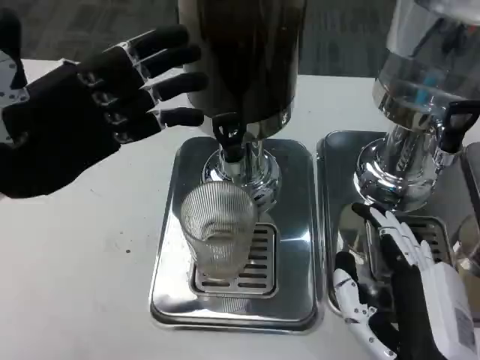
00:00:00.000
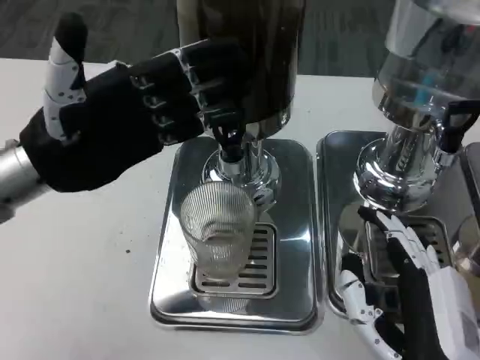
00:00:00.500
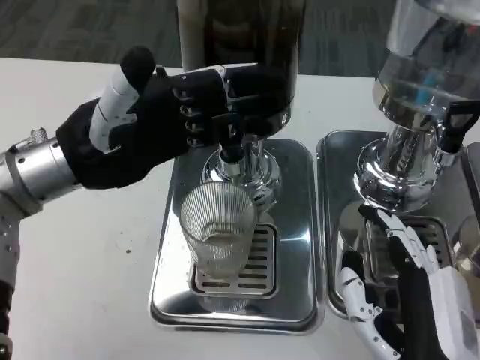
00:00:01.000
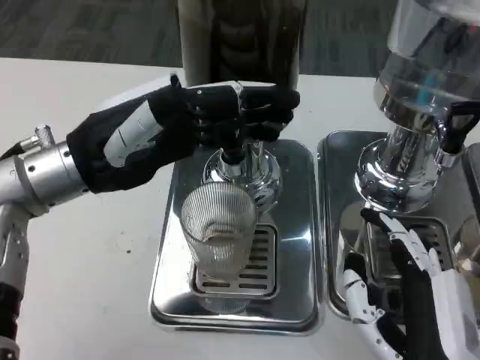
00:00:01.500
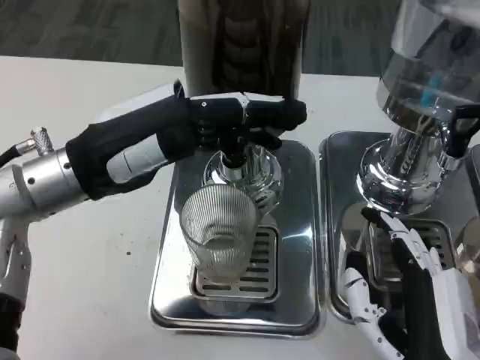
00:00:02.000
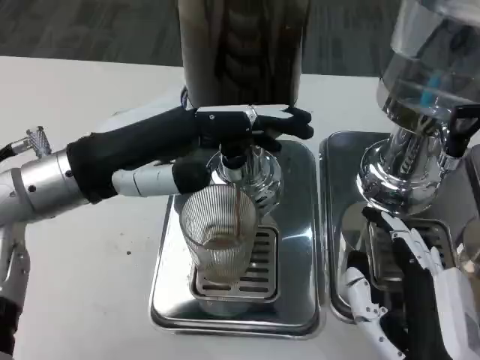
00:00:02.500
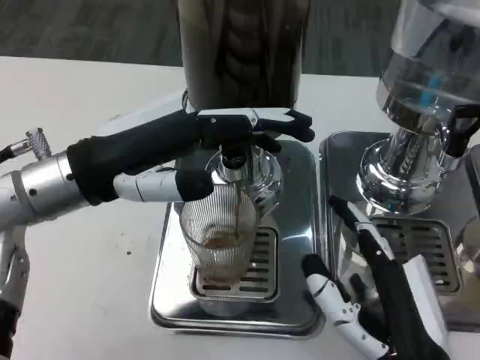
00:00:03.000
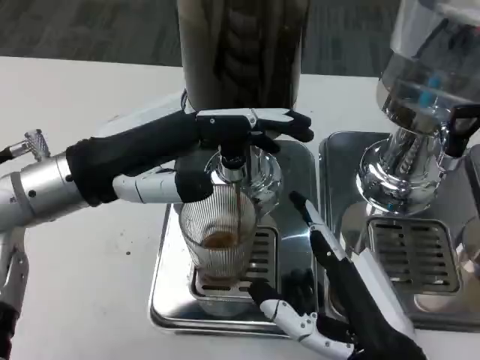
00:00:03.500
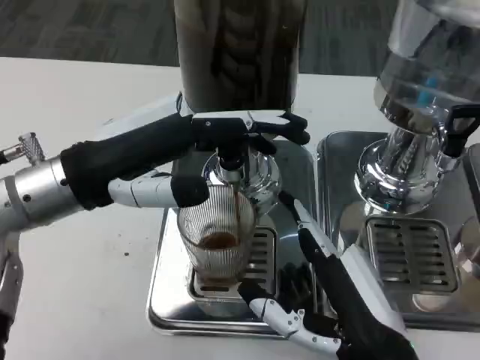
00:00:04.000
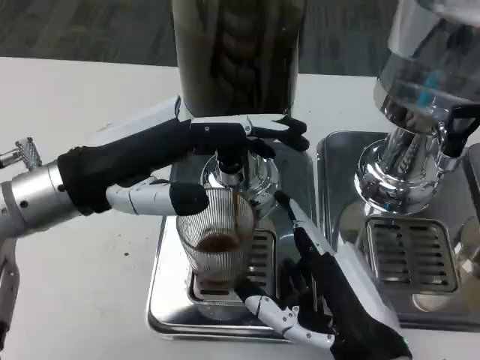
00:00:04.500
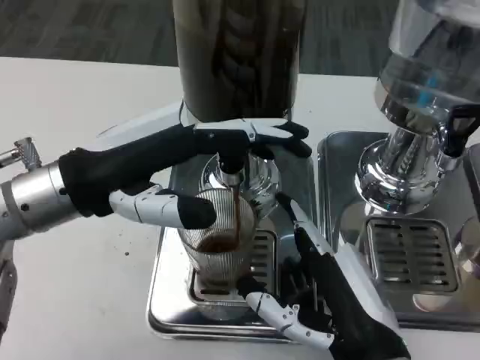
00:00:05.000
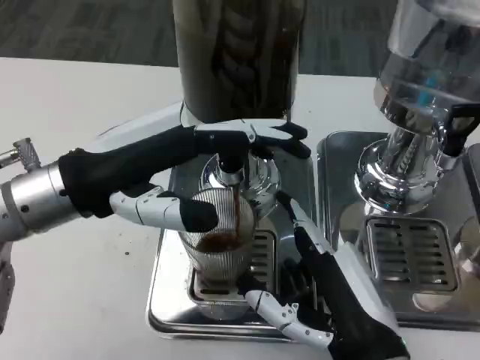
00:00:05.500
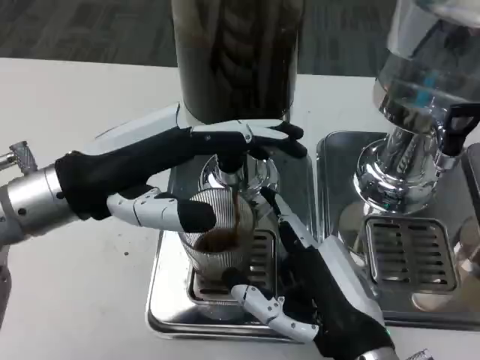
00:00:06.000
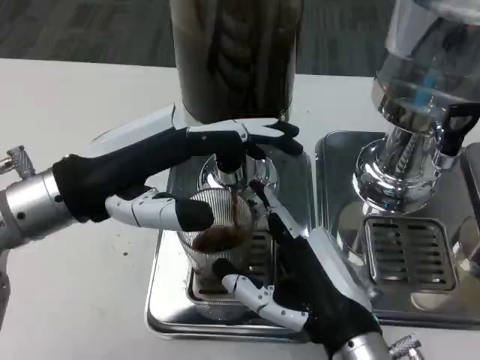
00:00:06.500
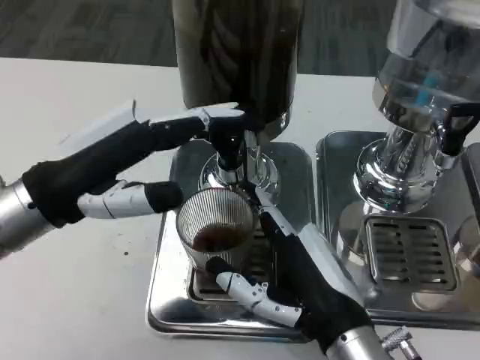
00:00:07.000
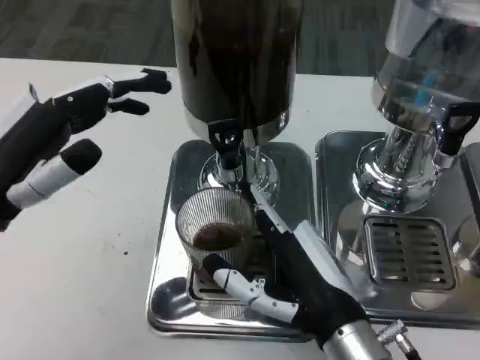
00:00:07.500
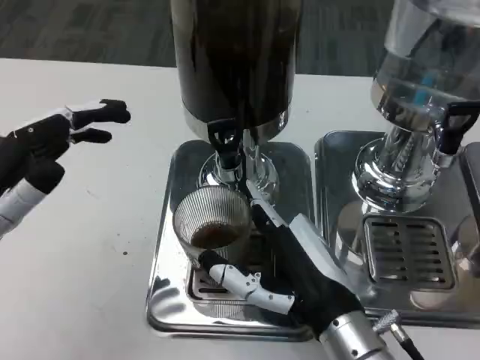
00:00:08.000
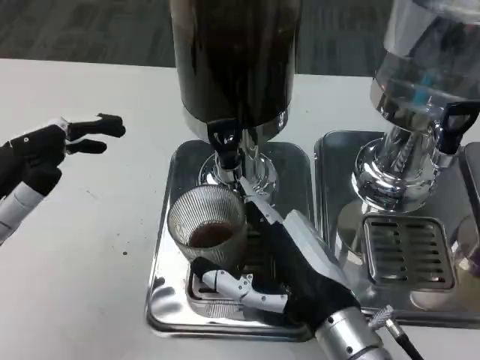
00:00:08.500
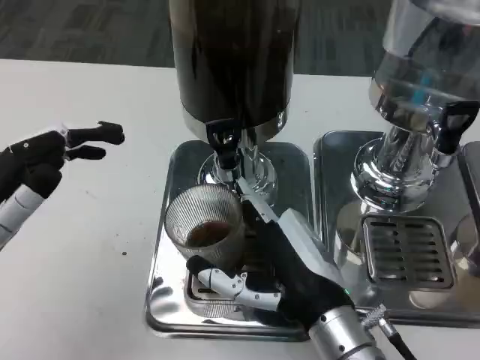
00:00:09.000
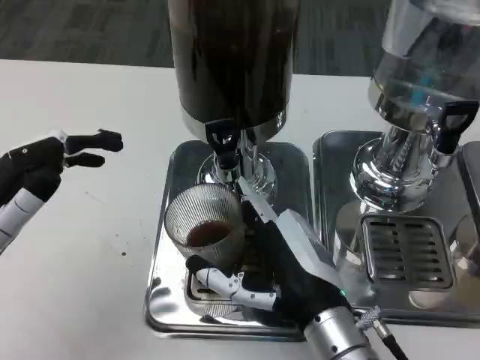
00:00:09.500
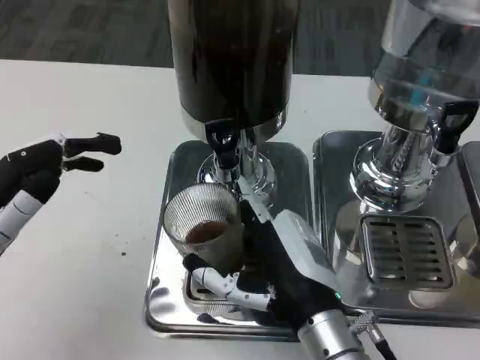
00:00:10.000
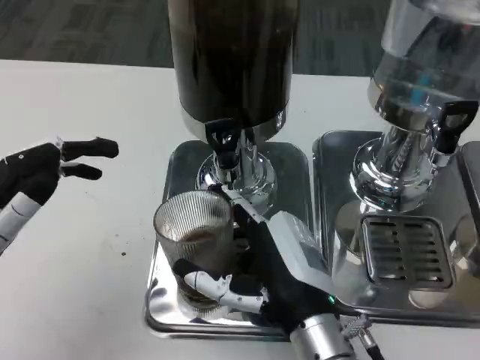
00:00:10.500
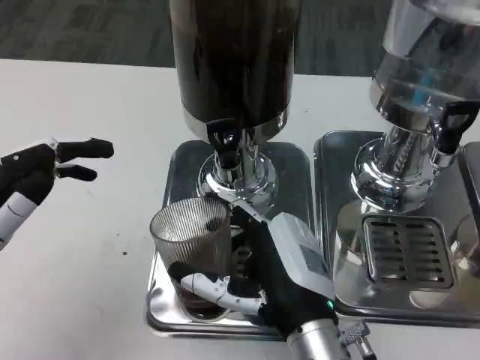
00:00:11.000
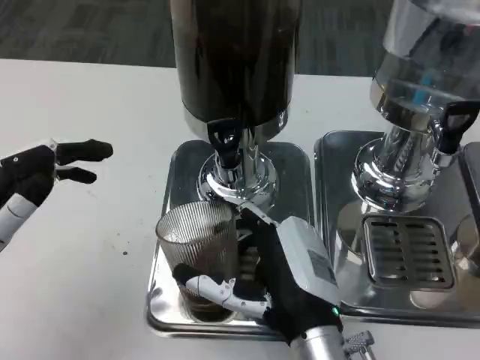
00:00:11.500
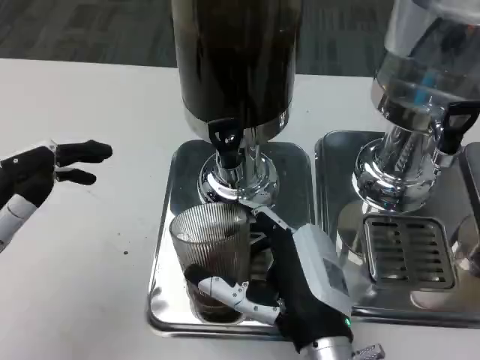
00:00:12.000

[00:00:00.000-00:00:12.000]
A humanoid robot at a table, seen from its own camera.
Task of the whole recording: Grasp the cup under the faucet to collect the drink, then remove the cup.
00:00:00.000 to 00:00:02.000: The left hand is displaced to the right by about 5 cm.
00:00:06.000 to 00:00:08.000: The left hand goes approximately 10 cm to the left, backward and downward.
00:00:10.000 to 00:00:12.000: The hands move only a little.

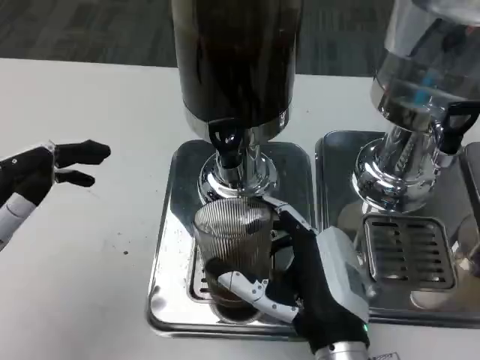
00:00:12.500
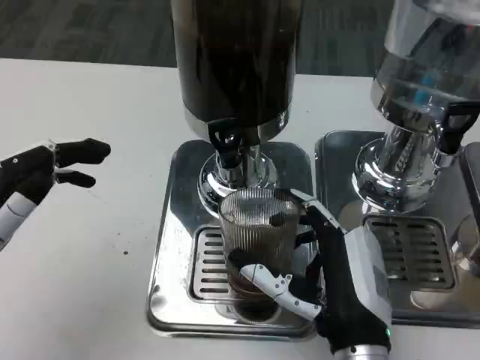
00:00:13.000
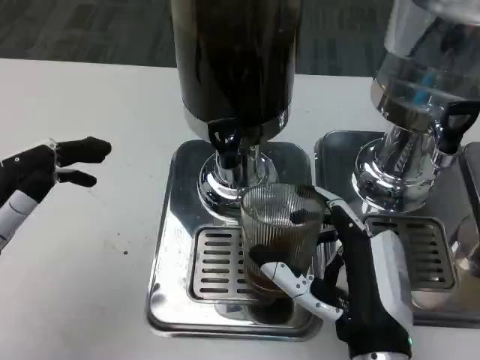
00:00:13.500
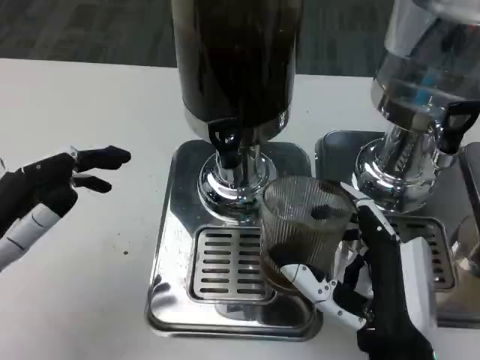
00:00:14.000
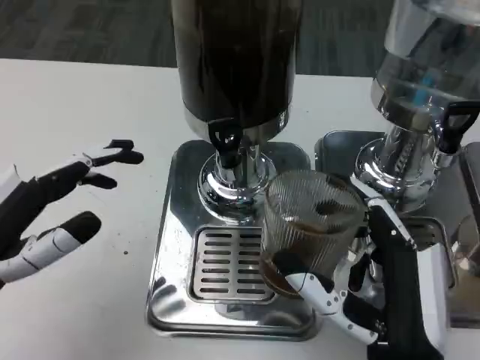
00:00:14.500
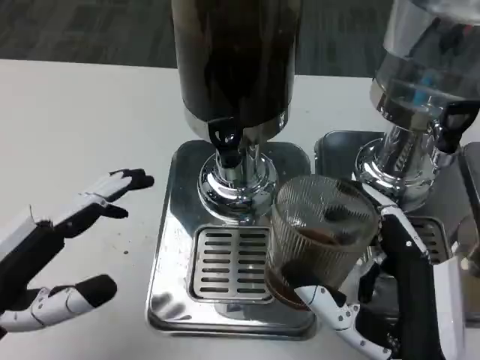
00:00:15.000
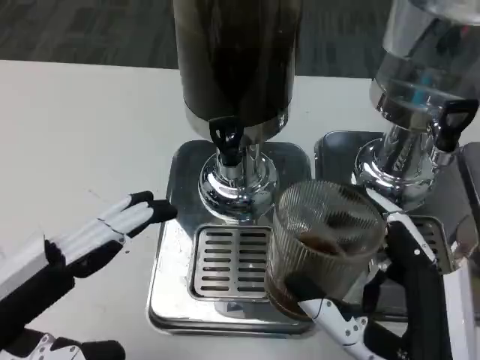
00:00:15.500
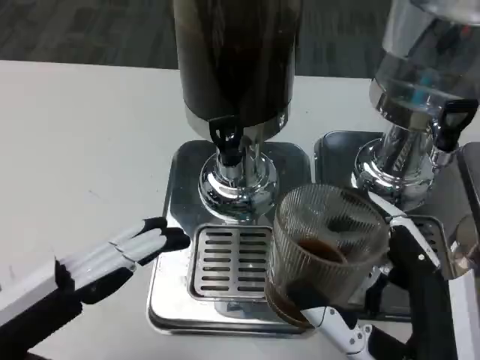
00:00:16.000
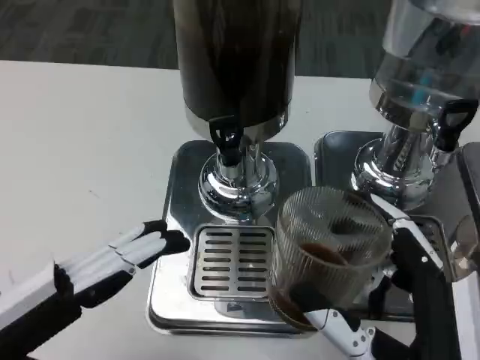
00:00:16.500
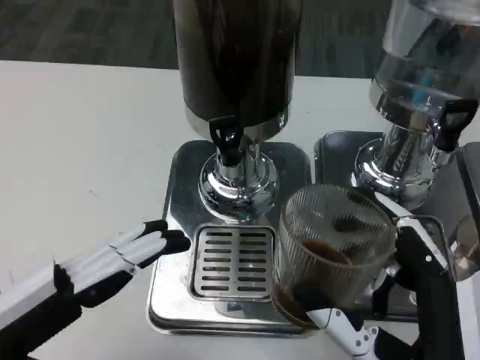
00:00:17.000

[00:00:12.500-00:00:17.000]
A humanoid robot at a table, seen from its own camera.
Task of the whole recording: Grasp the cup under the faucet to collect the drink, then remove the cup.
00:00:12.500 to 00:00:14.500: The right hand shifts by roughly 5 cm.
00:00:14.500 to 00:00:17.000: The left hand is displaced backward by some 5 cm.

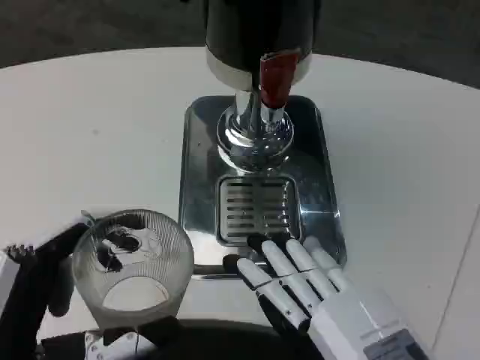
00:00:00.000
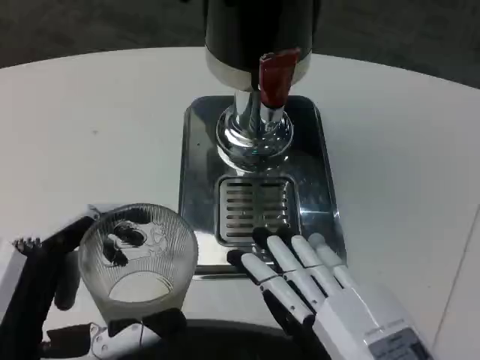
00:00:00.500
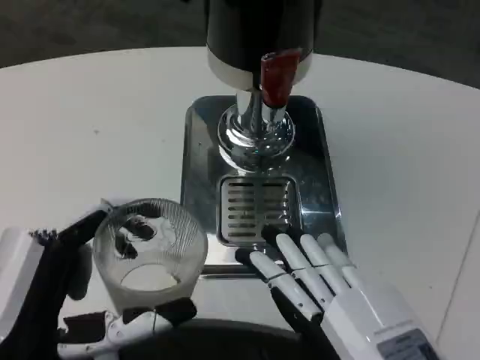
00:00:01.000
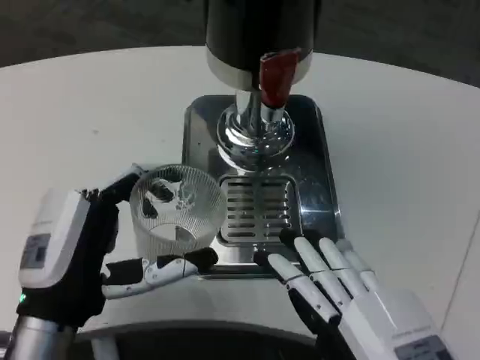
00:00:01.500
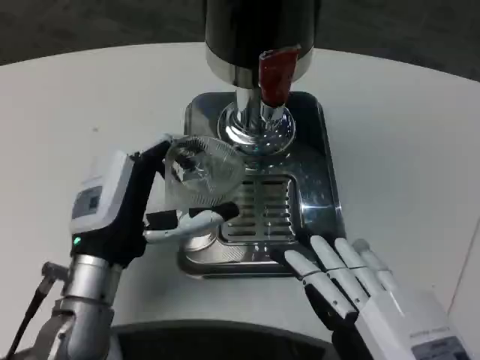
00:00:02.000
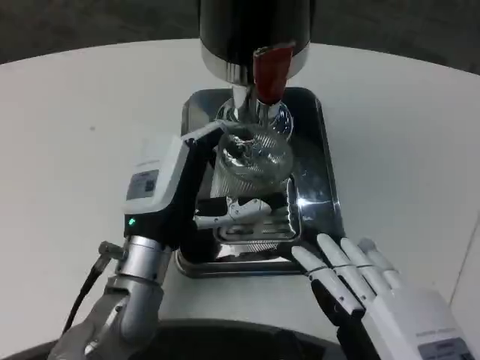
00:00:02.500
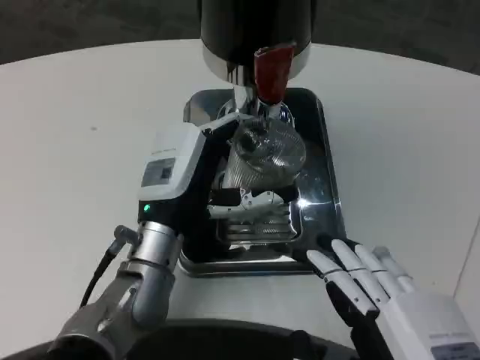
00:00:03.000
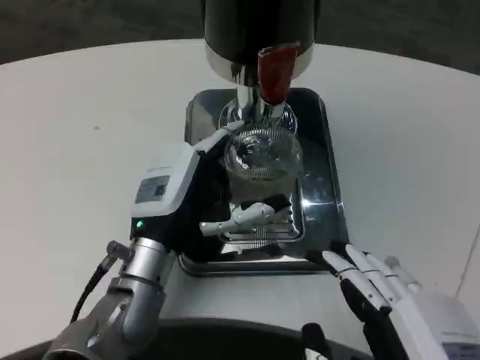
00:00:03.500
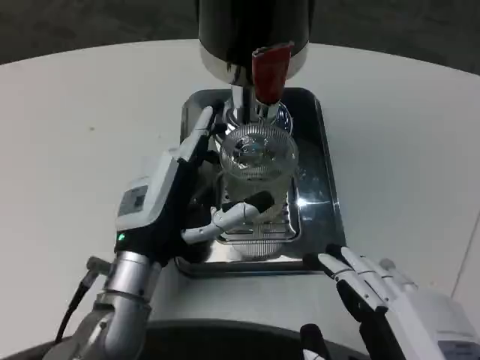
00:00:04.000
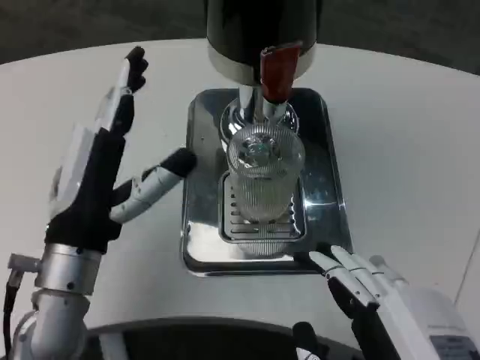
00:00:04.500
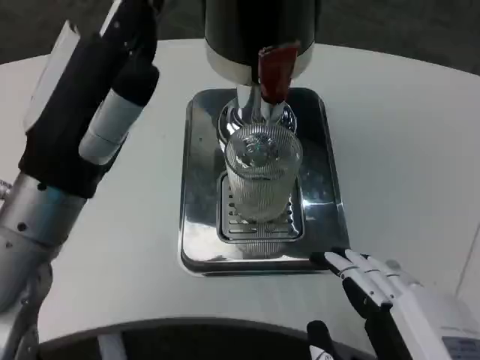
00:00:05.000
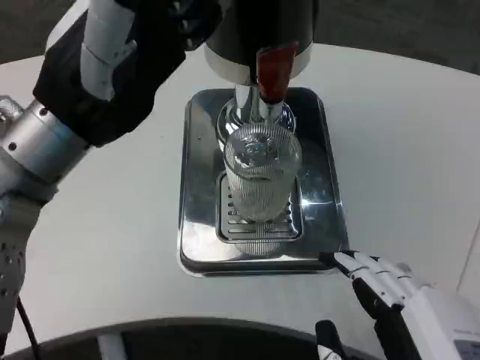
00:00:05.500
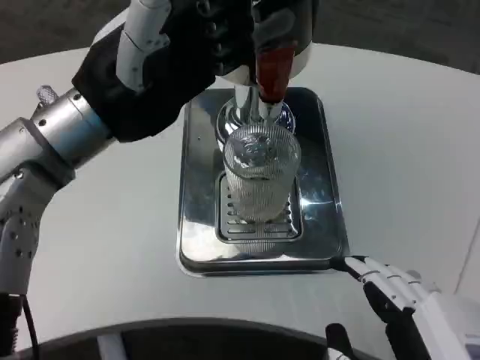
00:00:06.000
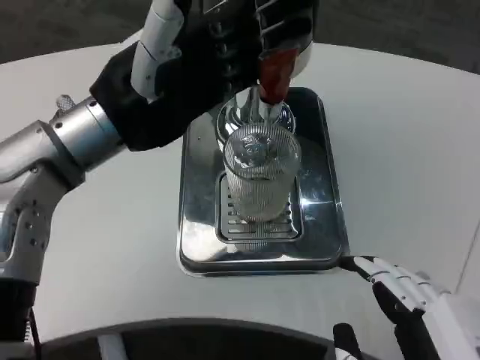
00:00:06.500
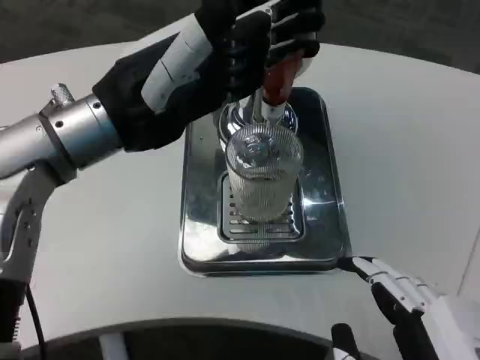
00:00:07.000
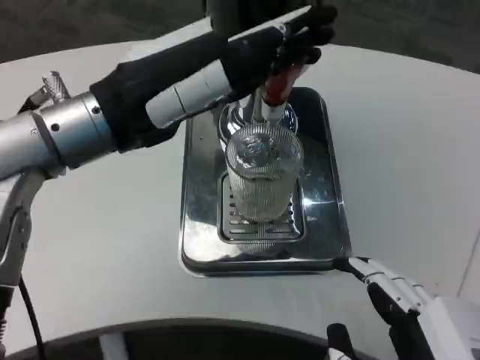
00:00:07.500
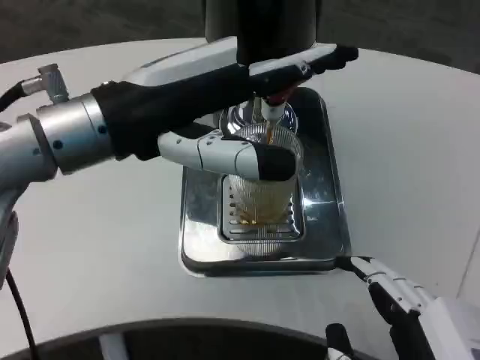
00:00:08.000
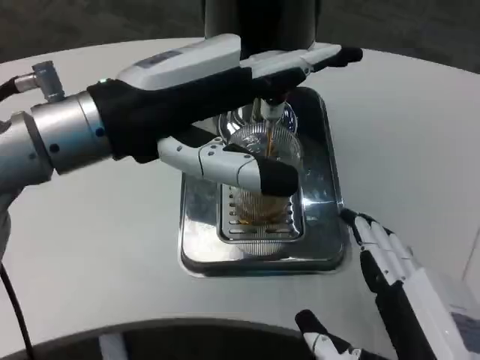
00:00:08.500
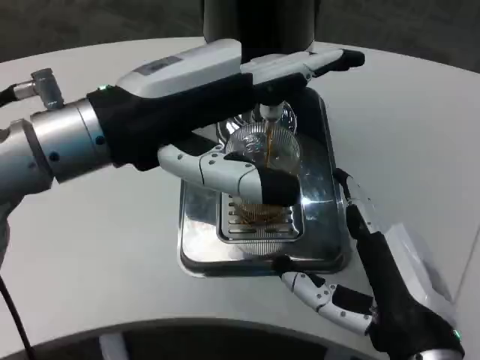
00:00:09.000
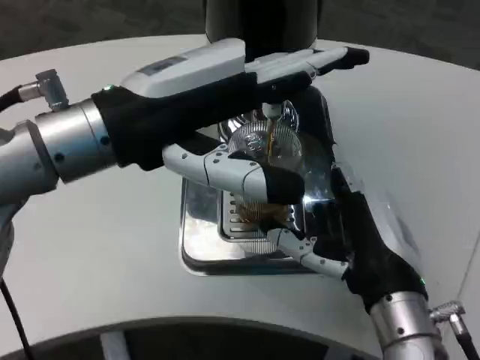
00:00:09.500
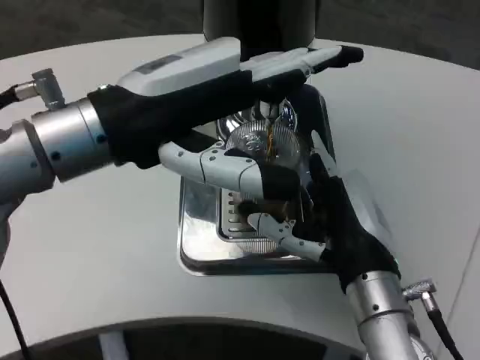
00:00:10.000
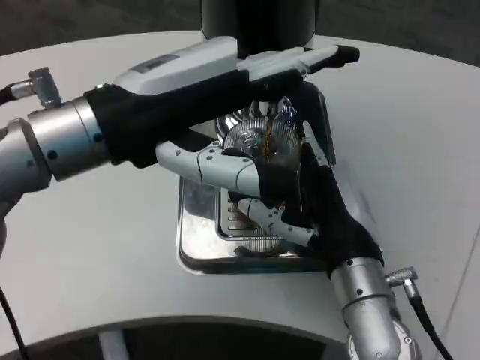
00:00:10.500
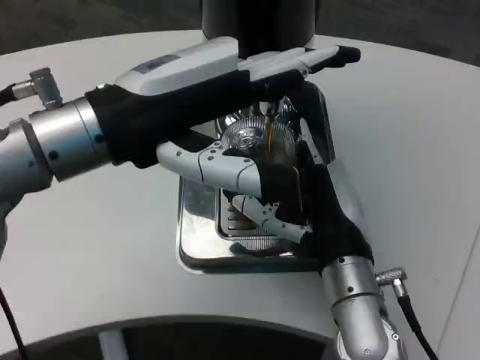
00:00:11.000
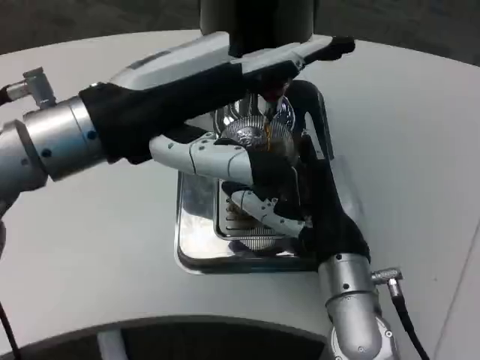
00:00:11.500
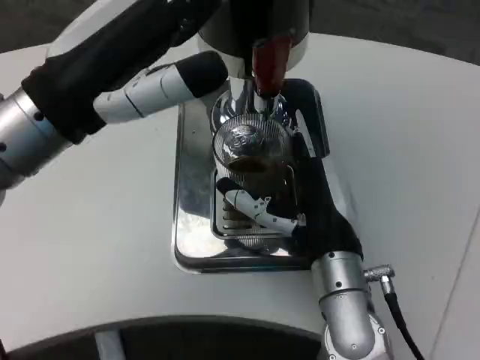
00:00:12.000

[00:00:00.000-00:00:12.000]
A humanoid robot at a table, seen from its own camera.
Task of the whole recording: Grasp the cup under the faucet to collect the drink, then remove the cup.
00:00:00.000 to 00:00:02.000: The left hand heads forward, covering about 15 cm.
00:00:04.000 to 00:00:06.000: The left hand travels upward by approximately 20 cm.
00:00:08.000 to 00:00:10.000: The right hand heads forward, covering approximately 15 cm.
